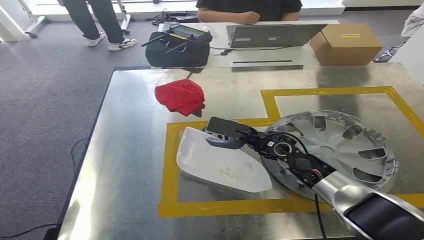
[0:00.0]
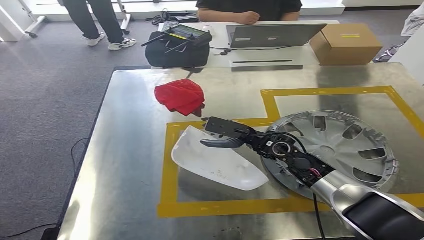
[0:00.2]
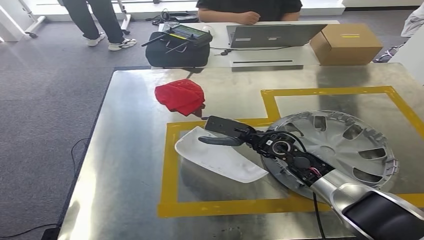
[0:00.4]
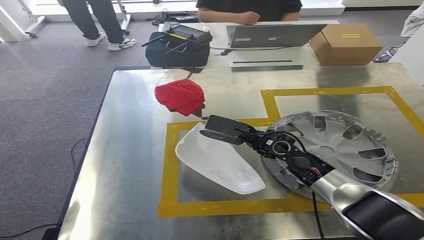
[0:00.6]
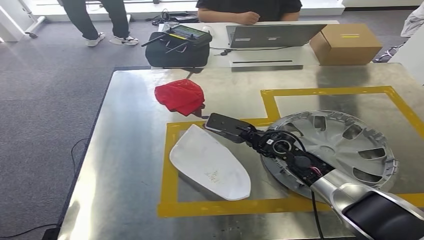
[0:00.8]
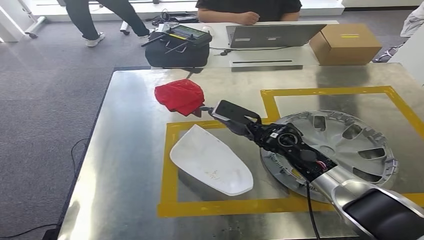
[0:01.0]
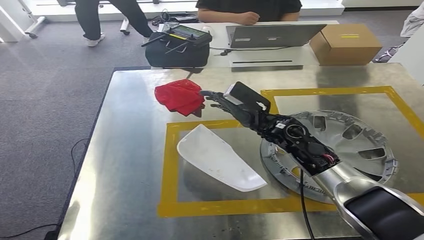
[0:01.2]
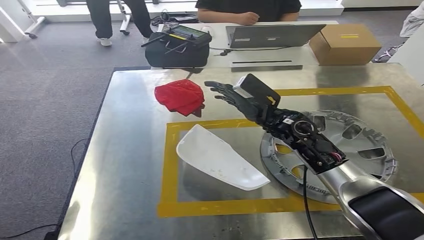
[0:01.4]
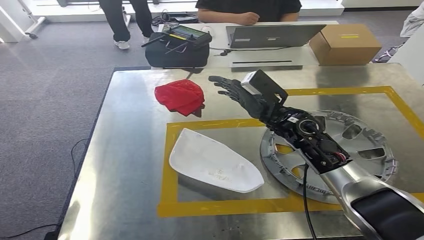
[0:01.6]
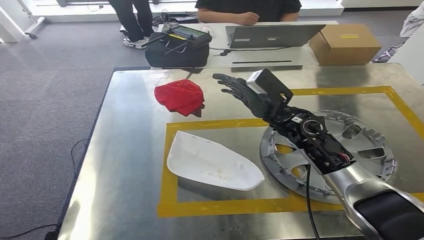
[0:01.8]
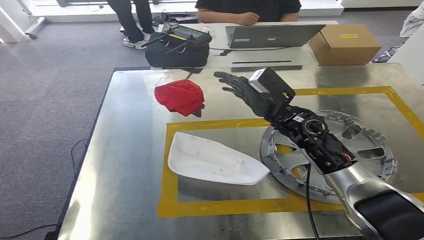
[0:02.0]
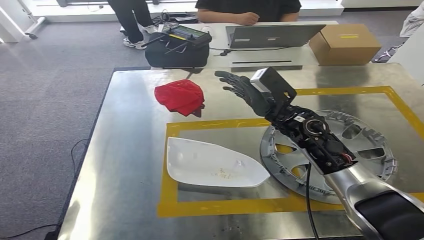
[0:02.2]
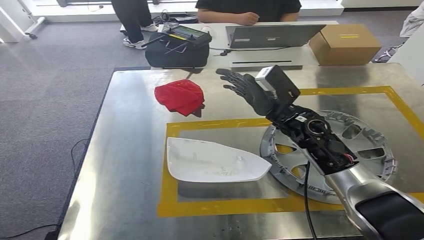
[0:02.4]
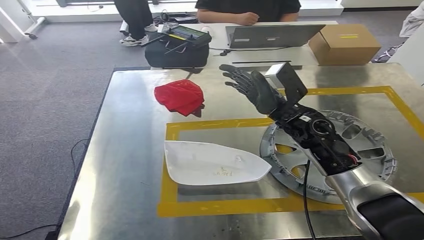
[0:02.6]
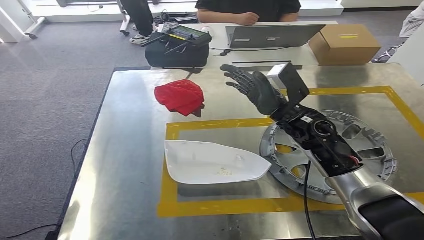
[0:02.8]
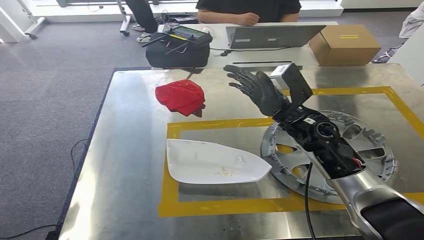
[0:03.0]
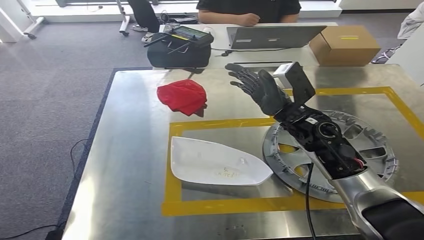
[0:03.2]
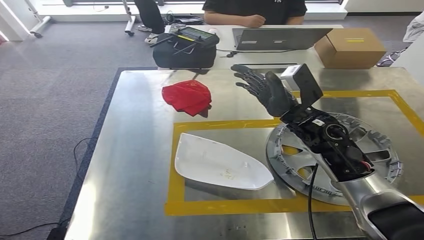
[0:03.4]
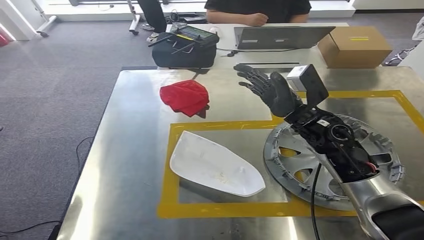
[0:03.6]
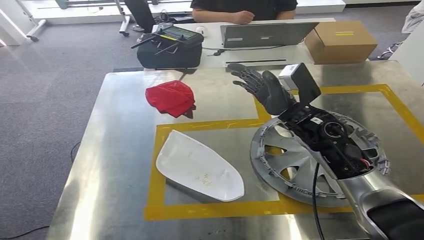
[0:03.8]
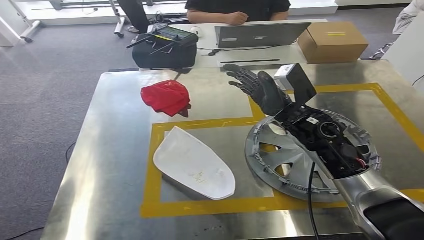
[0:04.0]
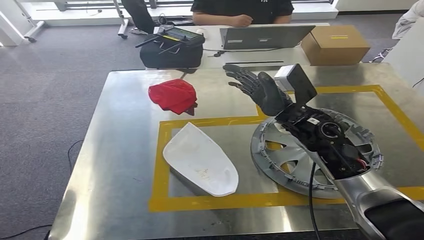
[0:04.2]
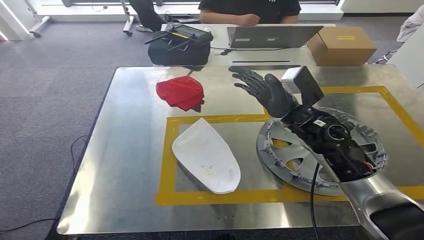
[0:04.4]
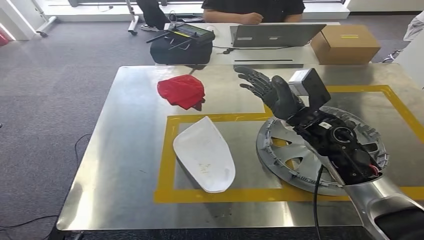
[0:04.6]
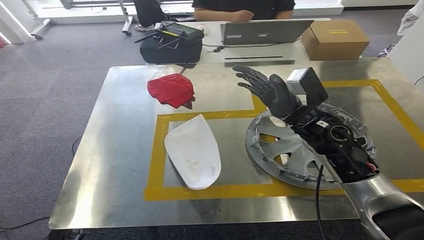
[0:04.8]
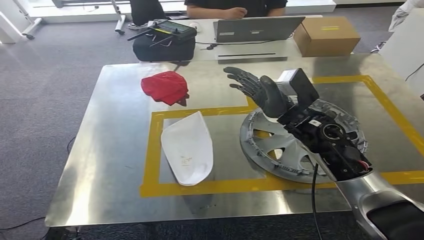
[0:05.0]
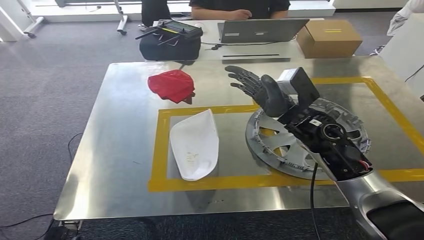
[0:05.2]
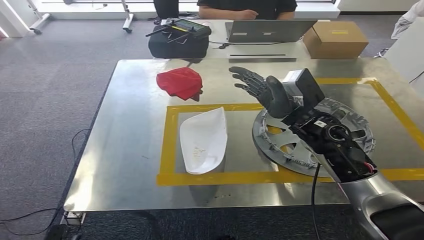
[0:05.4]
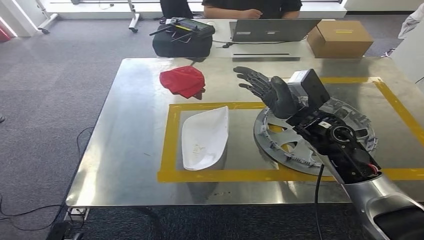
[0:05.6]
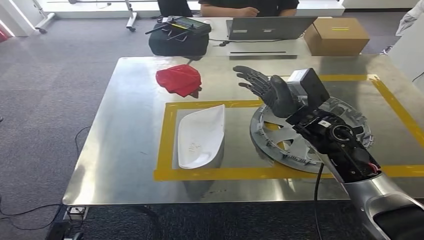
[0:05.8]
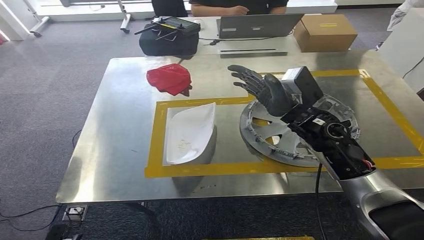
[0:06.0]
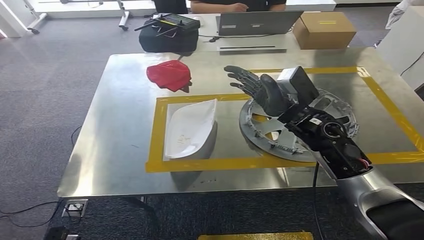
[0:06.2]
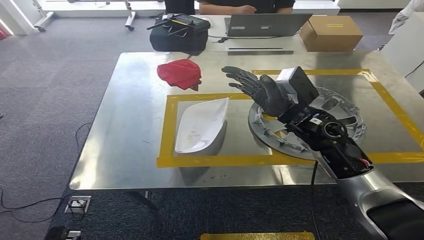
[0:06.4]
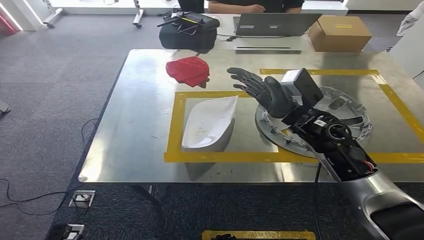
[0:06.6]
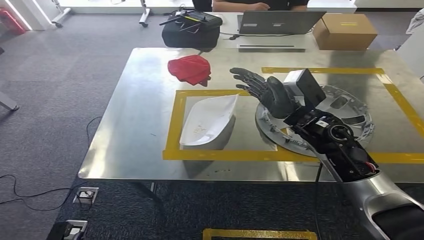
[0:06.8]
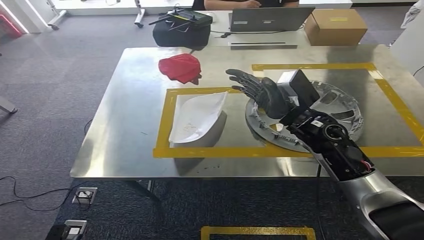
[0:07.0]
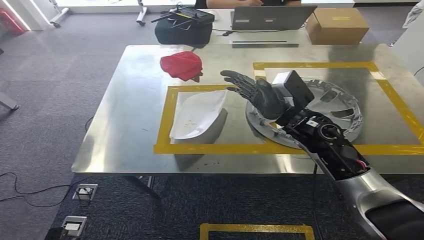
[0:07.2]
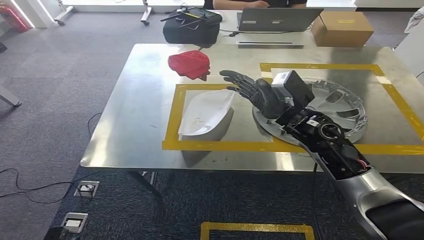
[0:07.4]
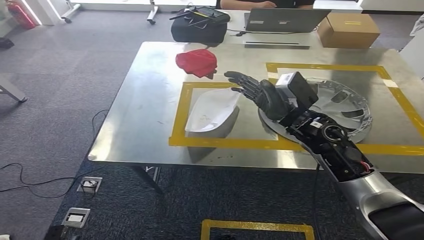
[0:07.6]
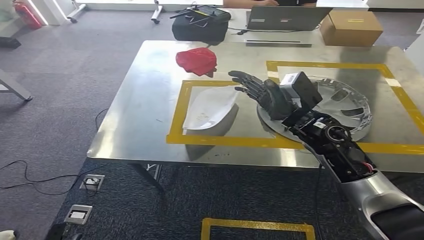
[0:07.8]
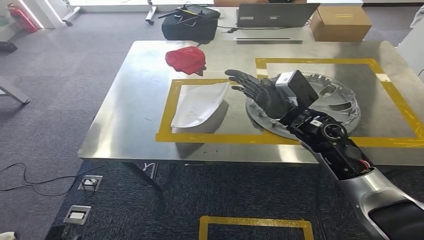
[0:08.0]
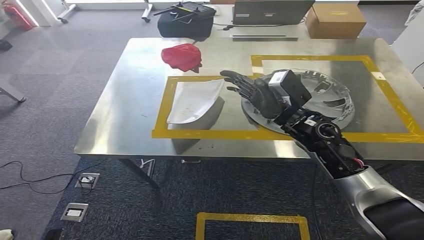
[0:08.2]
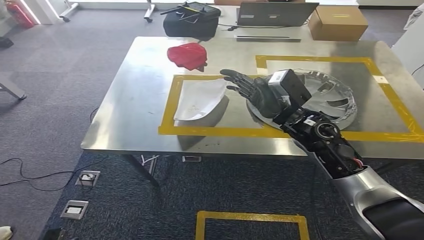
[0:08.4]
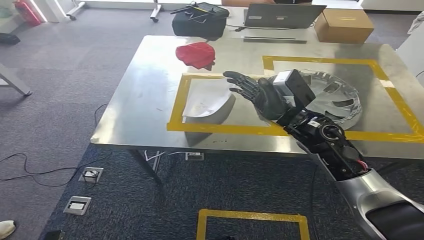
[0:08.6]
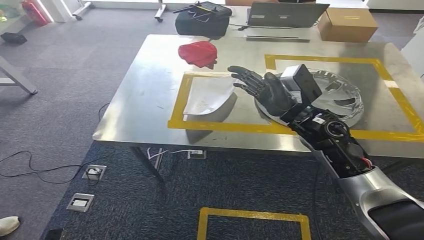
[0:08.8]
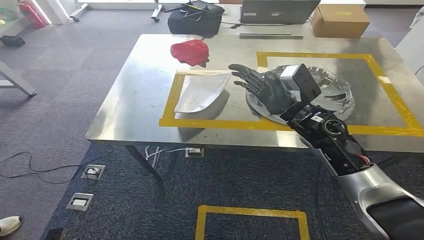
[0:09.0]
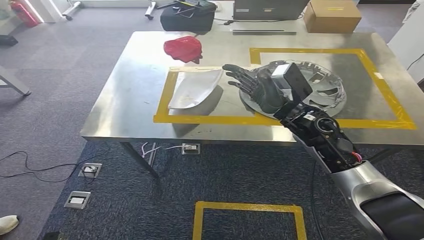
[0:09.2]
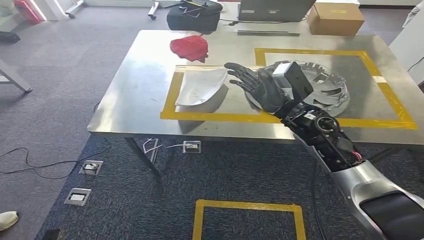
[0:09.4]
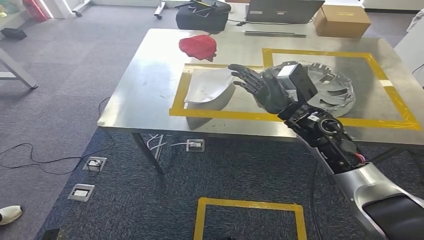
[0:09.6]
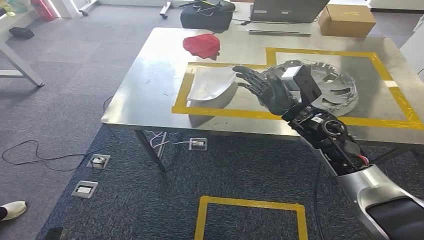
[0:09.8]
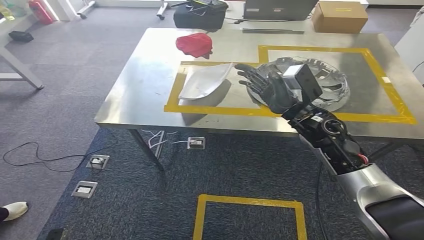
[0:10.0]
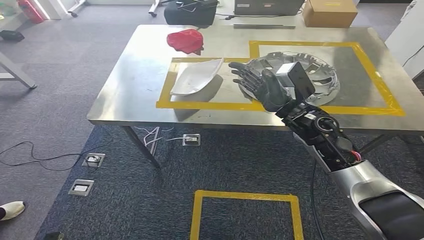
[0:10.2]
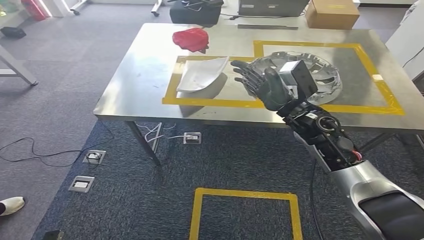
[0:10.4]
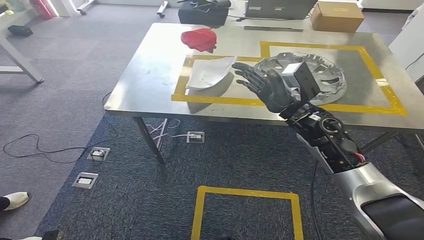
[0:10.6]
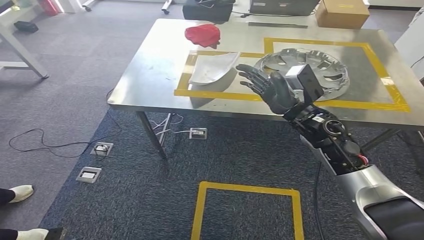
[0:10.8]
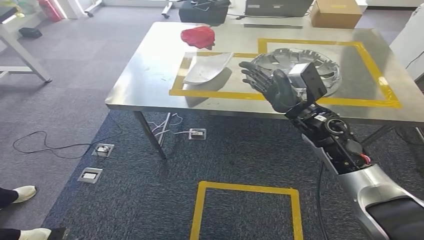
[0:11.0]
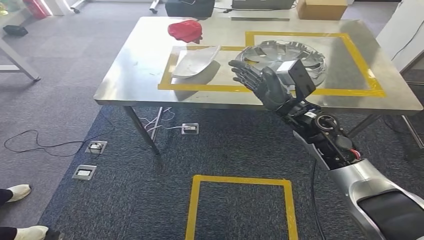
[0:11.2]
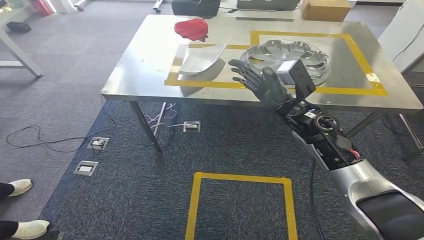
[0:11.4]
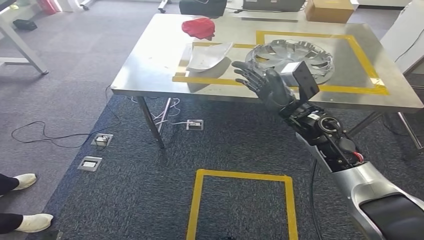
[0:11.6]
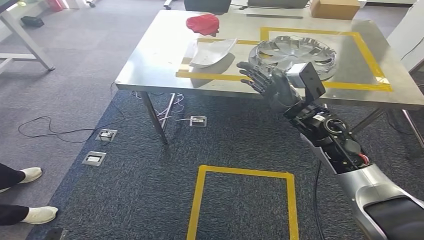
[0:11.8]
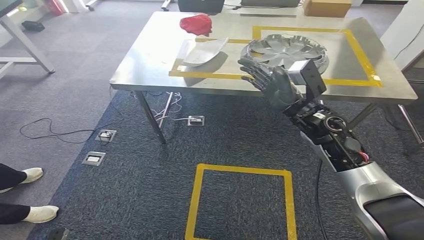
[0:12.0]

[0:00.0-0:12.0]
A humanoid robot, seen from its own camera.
Step, 0:00.0 to 0:03.0: Insert the small component into the corresponding slot on the workbench.
0:00.0 to 0:01.6: The right hand travels upward by roughly 10 cm.
0:01.6 to 0:03.0: The hands make only small movements.

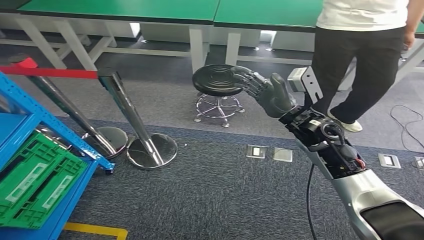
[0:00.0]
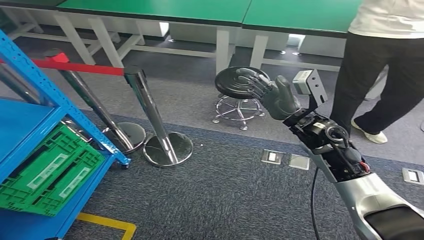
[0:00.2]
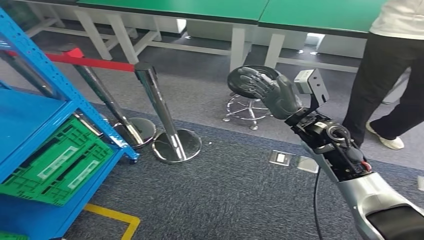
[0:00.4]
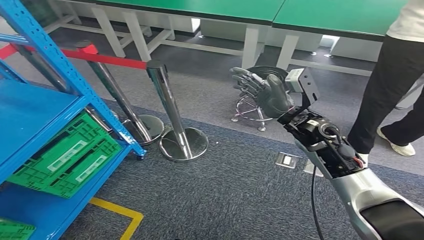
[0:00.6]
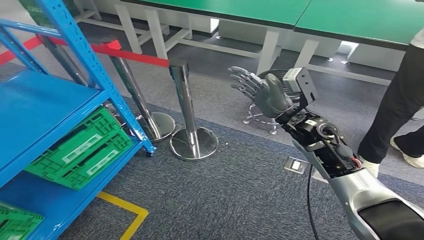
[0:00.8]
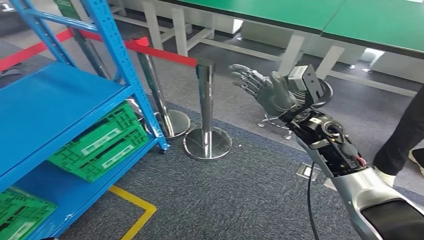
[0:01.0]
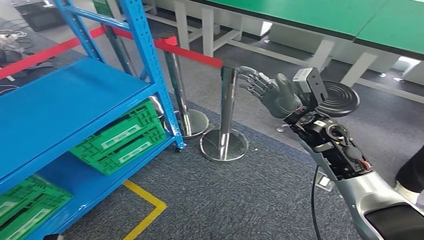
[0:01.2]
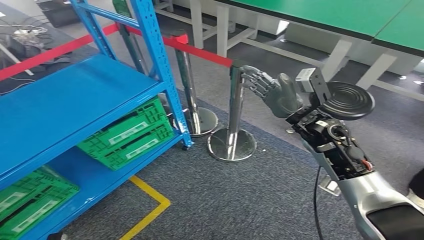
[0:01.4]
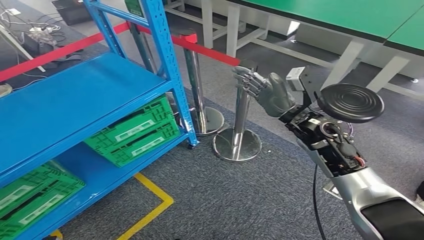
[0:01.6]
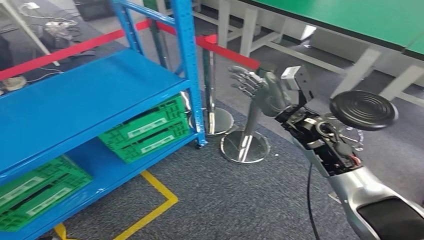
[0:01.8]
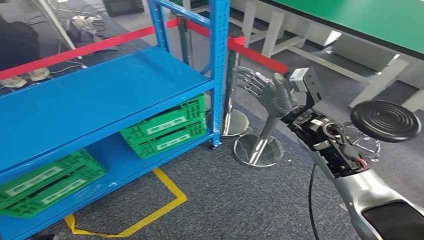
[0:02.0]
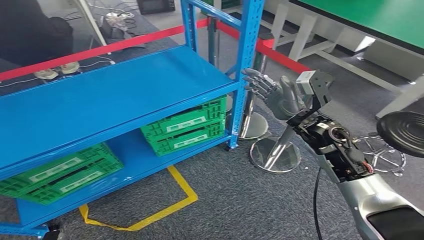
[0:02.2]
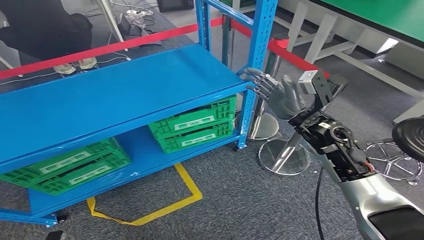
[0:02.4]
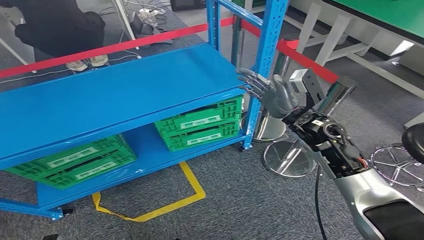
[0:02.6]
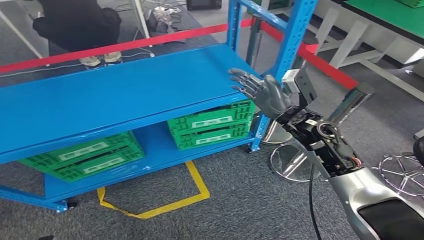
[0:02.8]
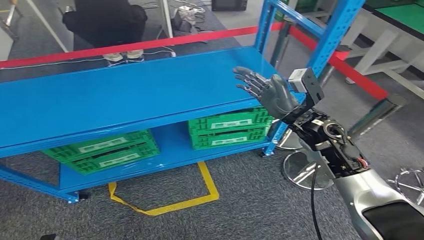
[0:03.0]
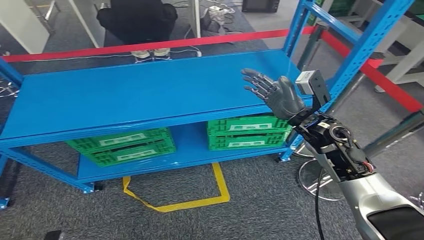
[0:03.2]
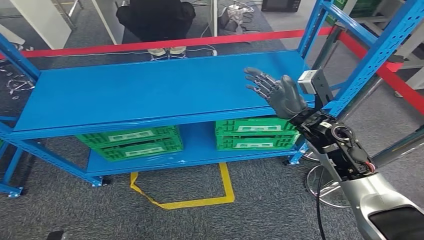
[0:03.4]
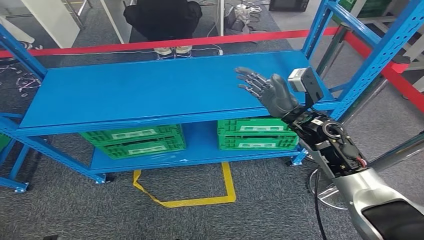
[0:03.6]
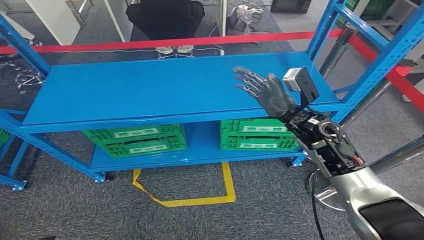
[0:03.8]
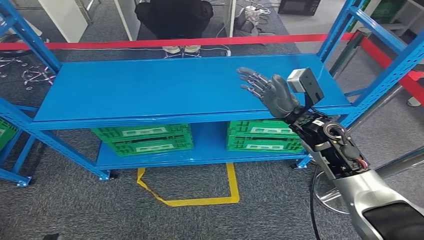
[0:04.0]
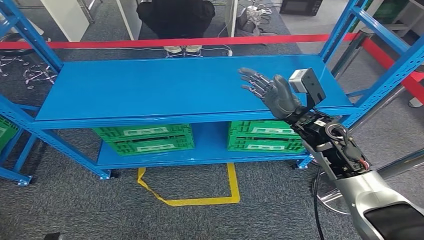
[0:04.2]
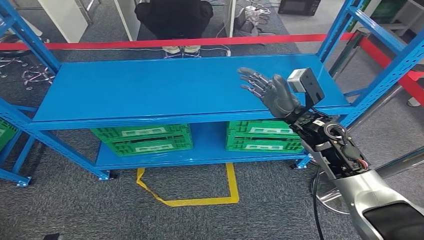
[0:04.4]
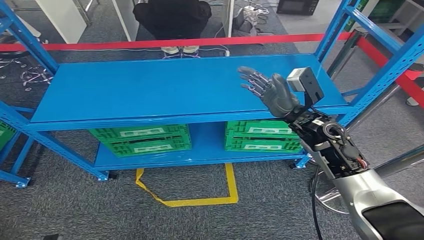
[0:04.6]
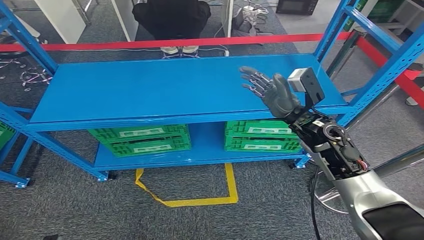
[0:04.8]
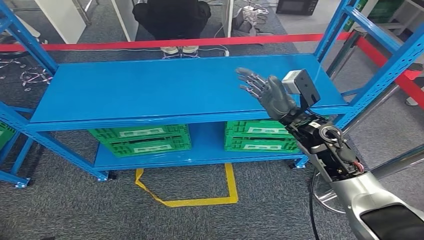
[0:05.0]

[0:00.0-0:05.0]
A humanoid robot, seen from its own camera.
Step, 0:00.0 to 0:05.0: Return to the initial position at the workbench.
